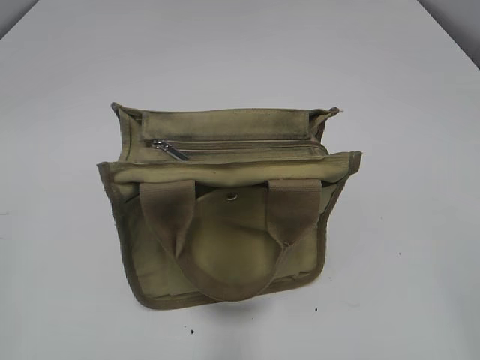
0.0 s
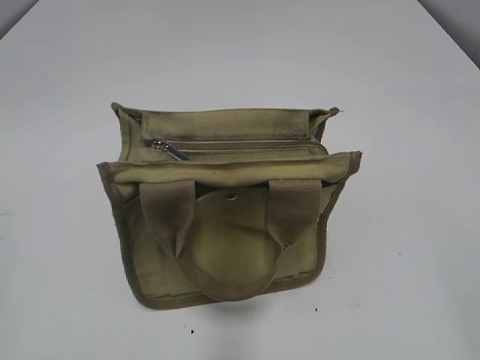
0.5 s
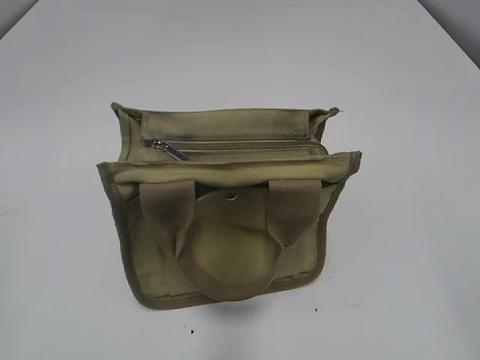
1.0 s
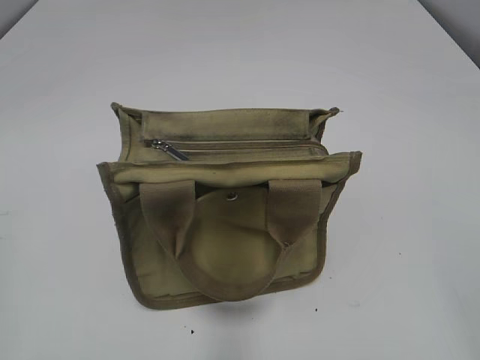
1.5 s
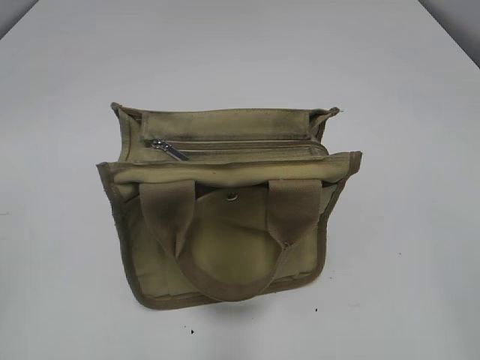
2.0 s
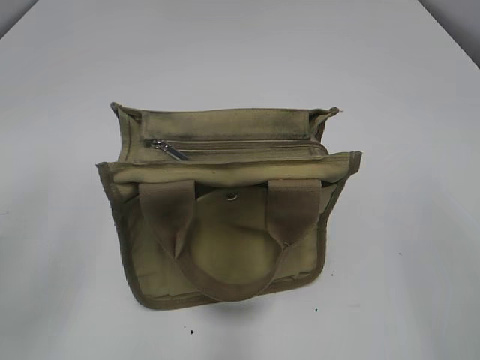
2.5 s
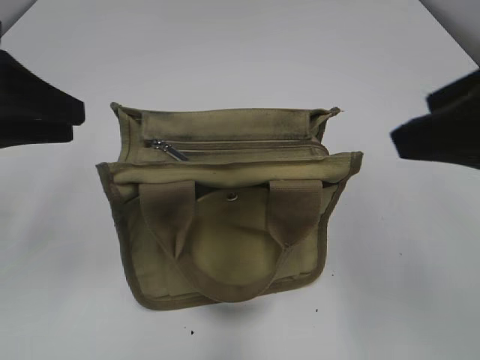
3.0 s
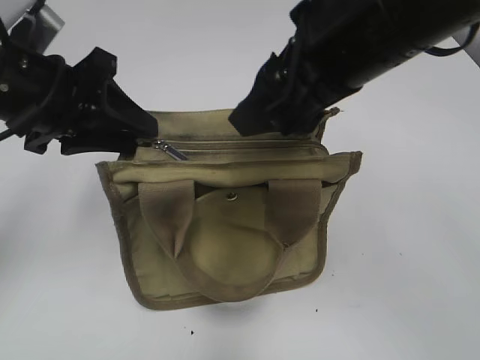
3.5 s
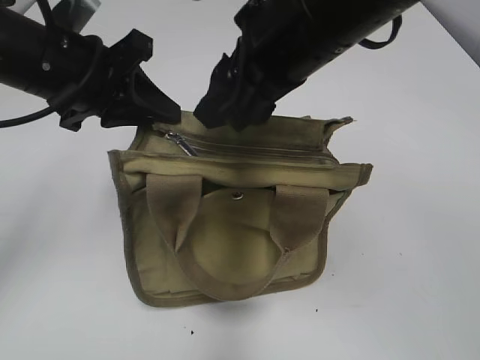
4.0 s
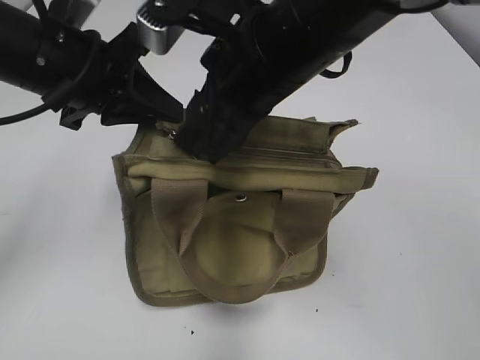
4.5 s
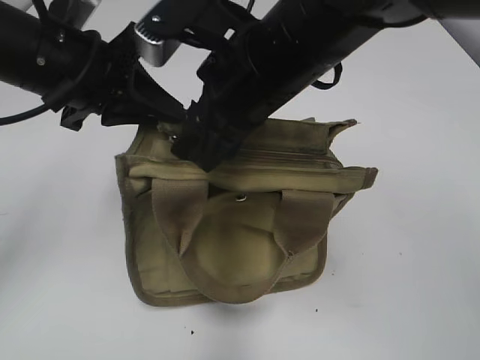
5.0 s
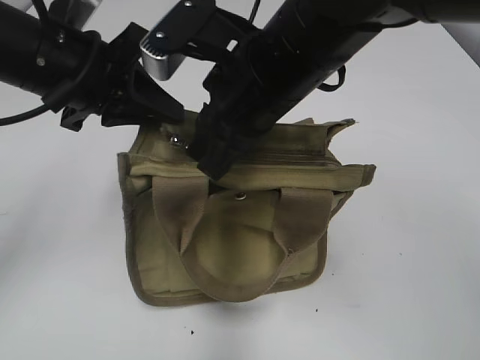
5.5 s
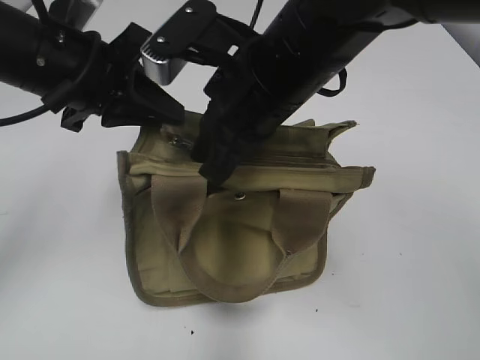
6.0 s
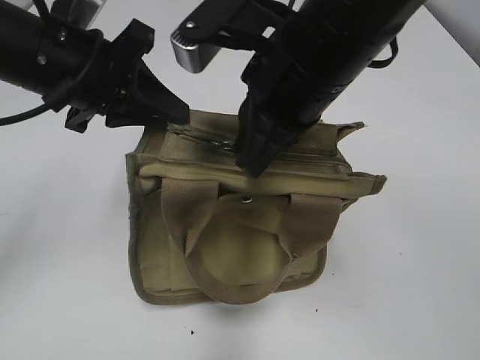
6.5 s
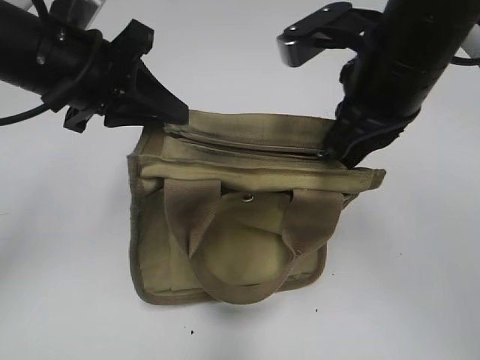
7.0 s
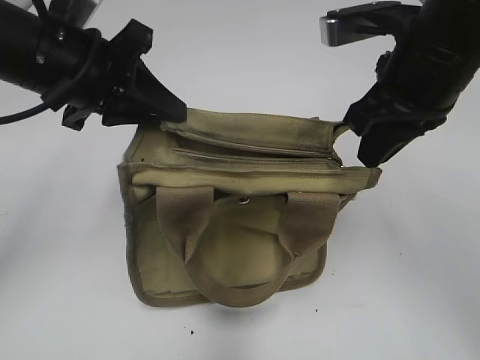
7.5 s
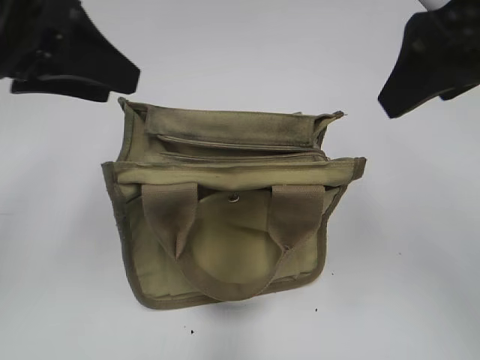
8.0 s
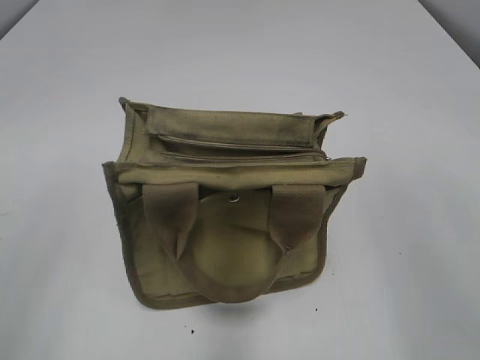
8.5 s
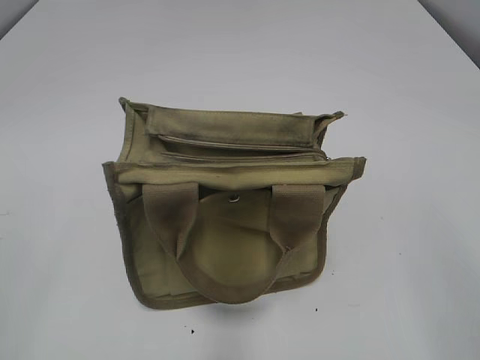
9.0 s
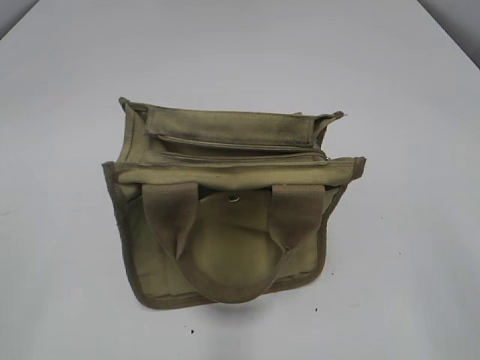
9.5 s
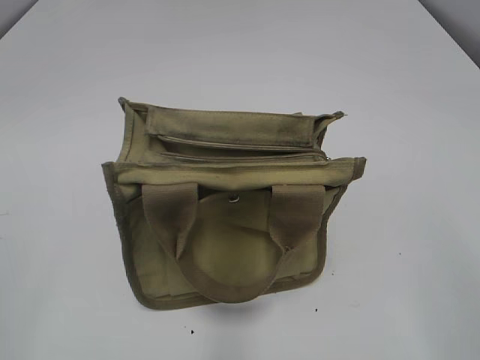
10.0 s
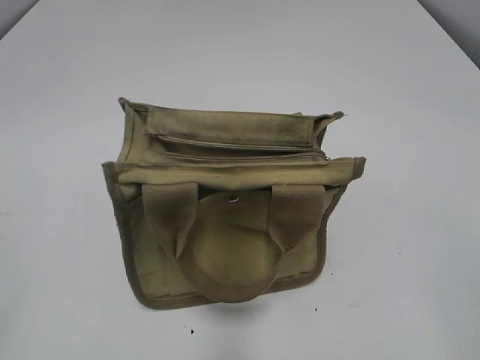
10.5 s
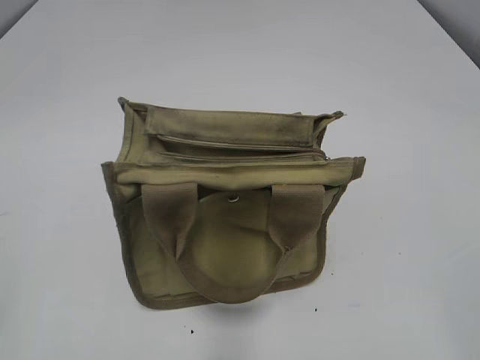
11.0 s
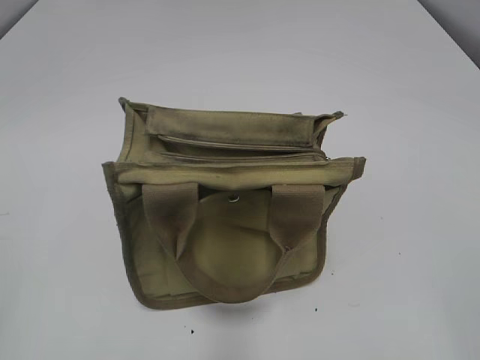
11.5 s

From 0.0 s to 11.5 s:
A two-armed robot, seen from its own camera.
Step, from 0.0 s to 7.0 s: Pull open the zipper with your right hand.
Step, from 7.5 s to 8.0 s: Hold the bag with your left hand.
From 2.0 s to 4.0 s: The left gripper shifts roughly 35 cm forward and to the right; the right gripper travels forward and to the left by some 35 cm.
From 4.0 s to 6.0 s: The right gripper is displaced downward by roughly 5 cm, and closes.
From 6.0 s to 7.5 s: The right gripper heads to the right, covering roughly 15 cm.
From 7.5 s to 9.5 s: The right gripper shifts about 25 cm backward, and opens its fingers. The left gripper travels backward and to the left by some 30 cm, and opens.

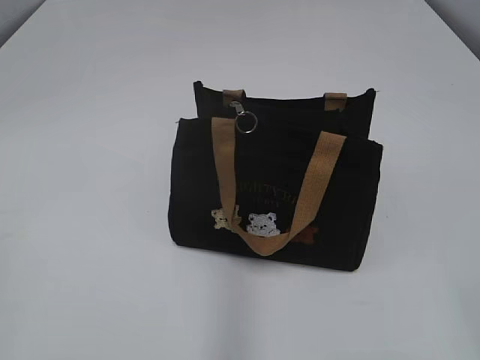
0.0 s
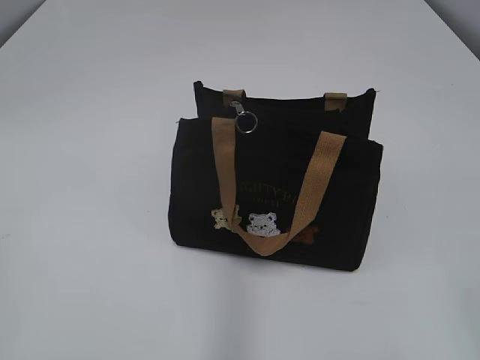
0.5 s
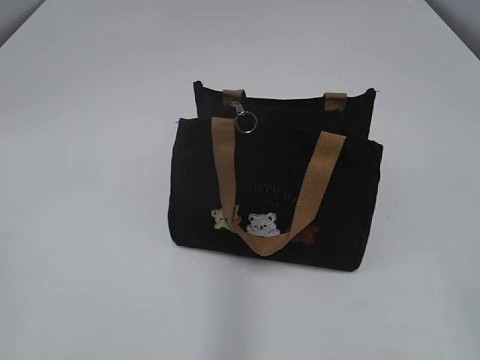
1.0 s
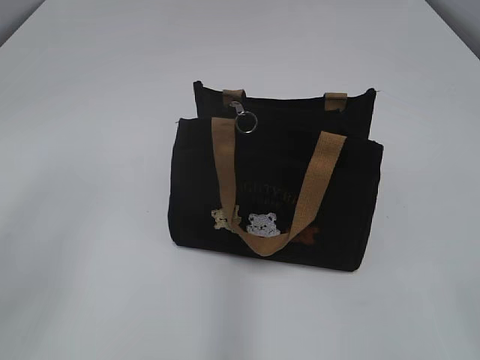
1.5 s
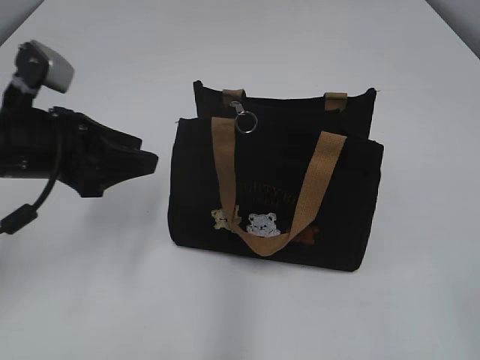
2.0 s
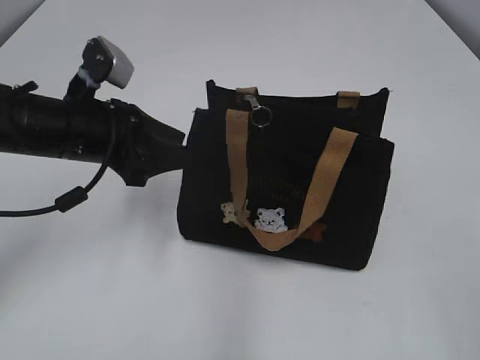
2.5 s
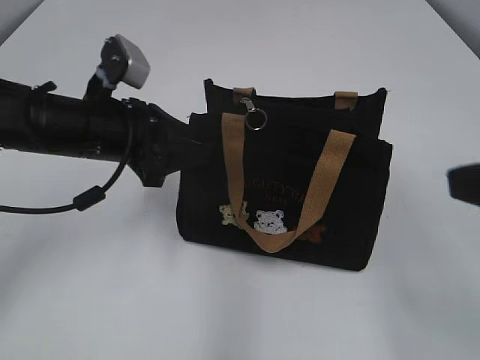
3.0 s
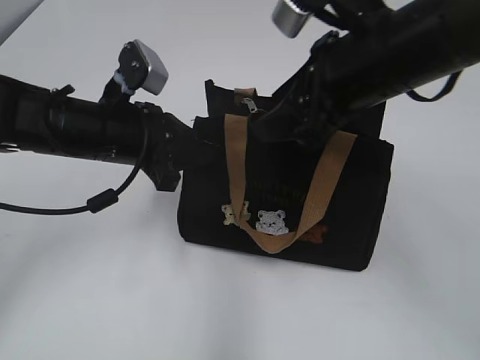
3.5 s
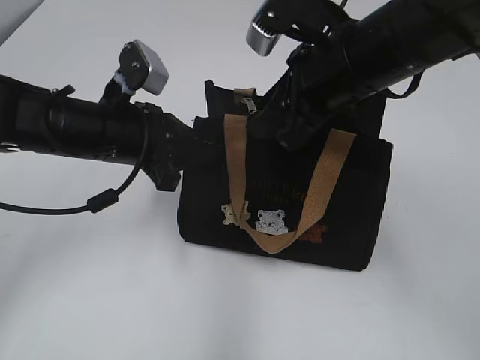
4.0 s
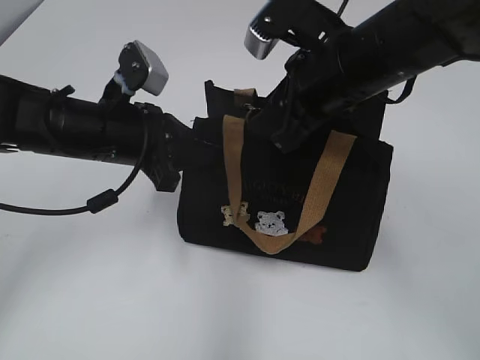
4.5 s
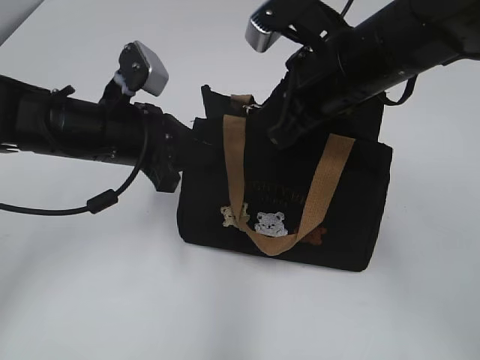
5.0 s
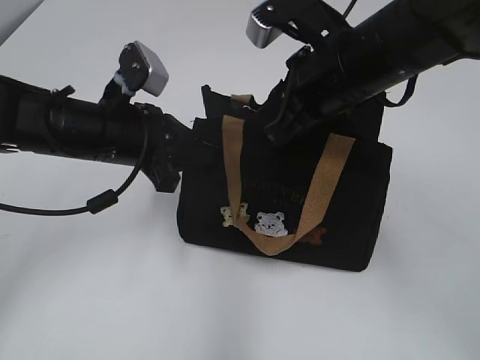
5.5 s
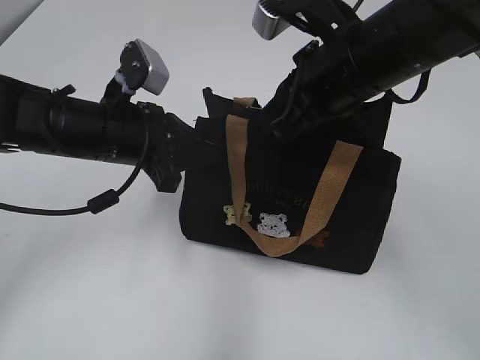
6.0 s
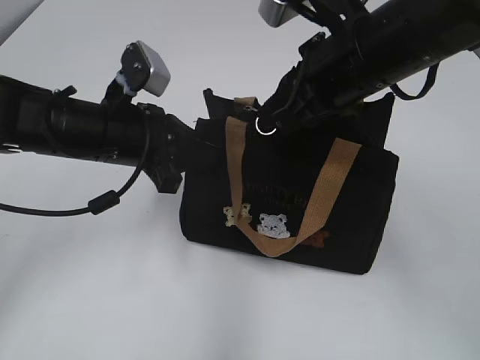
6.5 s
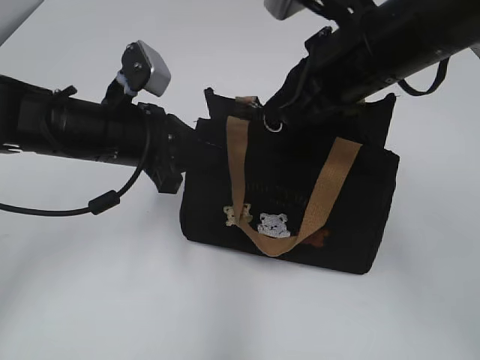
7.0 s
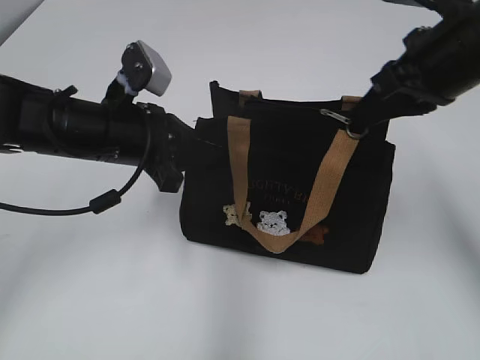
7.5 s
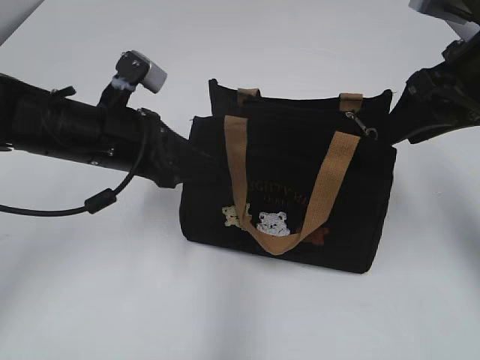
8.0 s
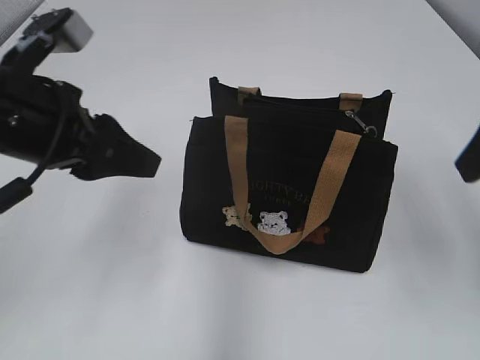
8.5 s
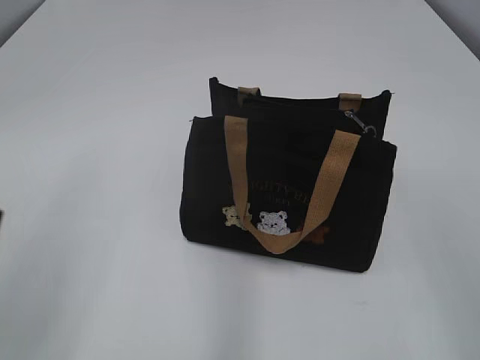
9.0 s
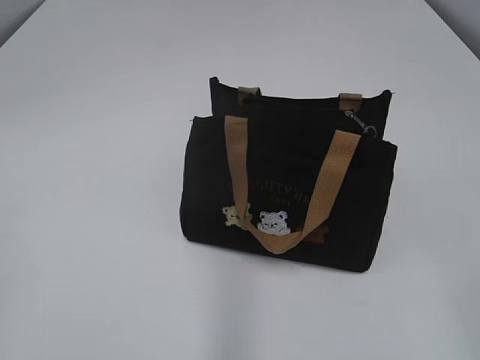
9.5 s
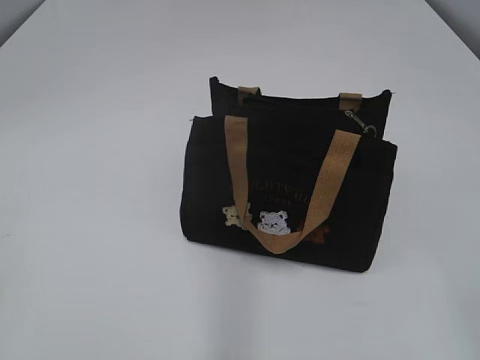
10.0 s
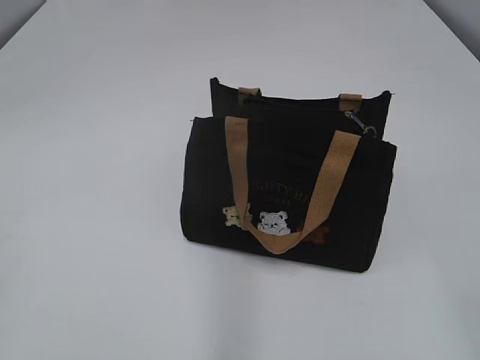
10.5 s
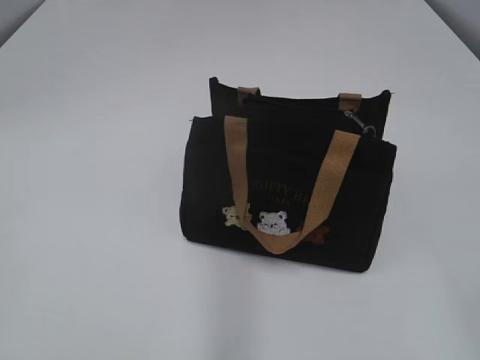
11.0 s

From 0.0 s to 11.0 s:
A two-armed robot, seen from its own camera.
Step, from 0.0 s to 7.5 s: Pull open the zipper with your right hand.
From 2.0 s to 3.5 s: The left gripper is displaced to the right and forward by about 10 cm, and closes up; the right gripper shifts approximately 30 cm forward and to the left.
From 3.5 s to 5.5 s: The right gripper ends up approximately 5 cm from where it was, and closes its fingers.
From 5.5 s to 7.5 s: The right gripper goes approximately 10 cm to the right, and closes its fingers.
From 7.5 s to 9.0 s: The right gripper heads backward, covering some 20 cm, and opens its fingers. Meanwhile the left gripper heads backward, upward and to the left, covering about 25 cm, and opens.
From 9.0 s to 11.0 s: The left gripper shifts approximately 15 cm backward and to the left.
